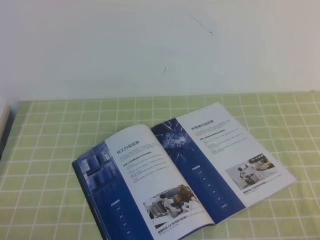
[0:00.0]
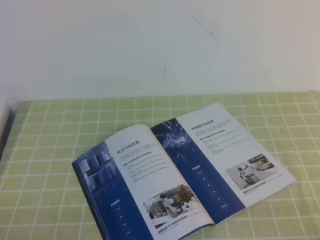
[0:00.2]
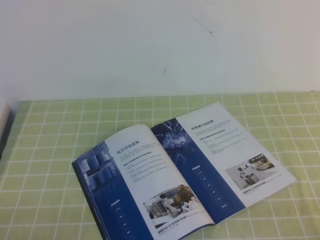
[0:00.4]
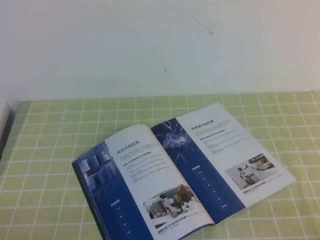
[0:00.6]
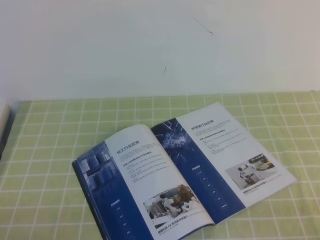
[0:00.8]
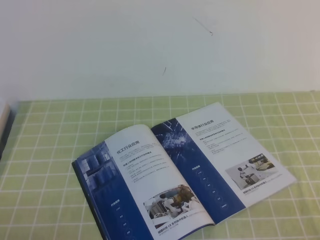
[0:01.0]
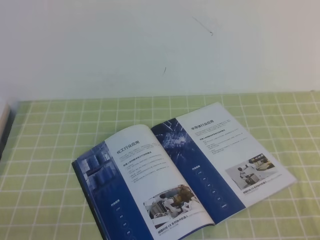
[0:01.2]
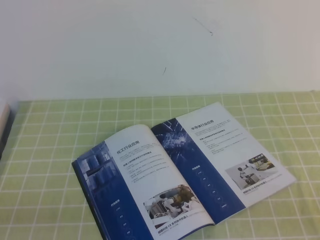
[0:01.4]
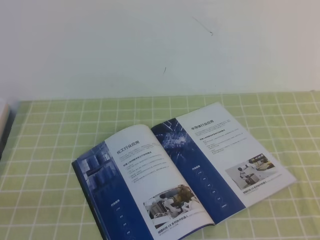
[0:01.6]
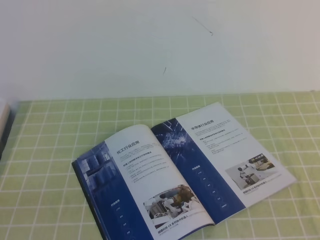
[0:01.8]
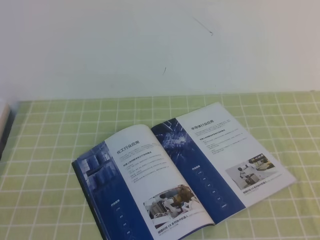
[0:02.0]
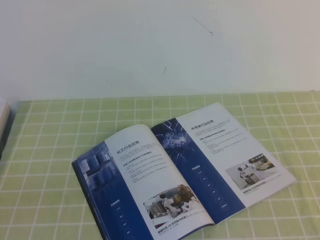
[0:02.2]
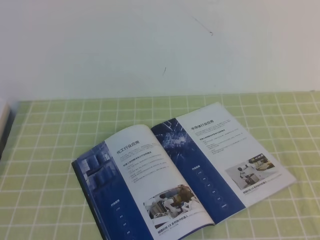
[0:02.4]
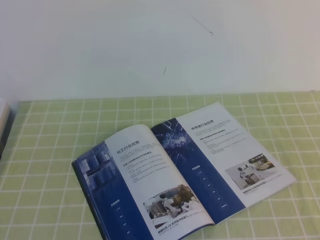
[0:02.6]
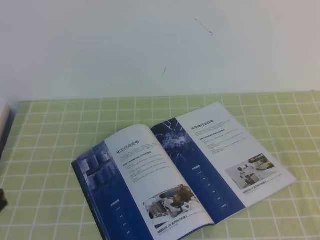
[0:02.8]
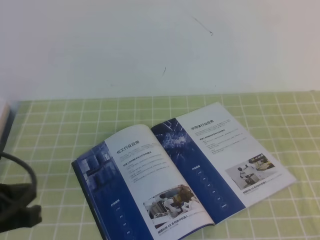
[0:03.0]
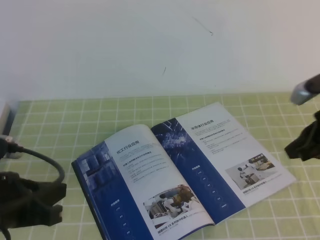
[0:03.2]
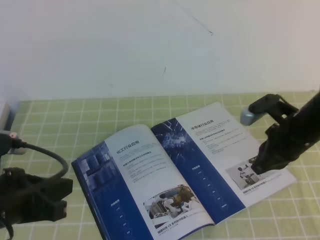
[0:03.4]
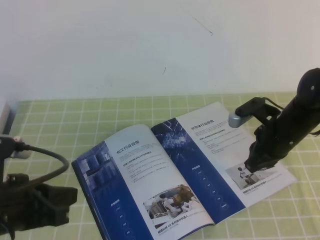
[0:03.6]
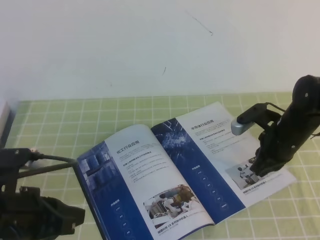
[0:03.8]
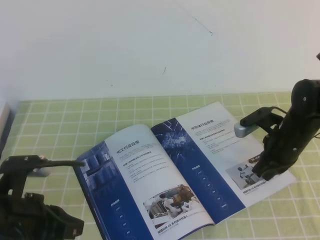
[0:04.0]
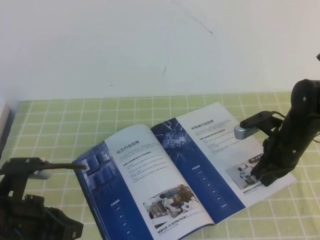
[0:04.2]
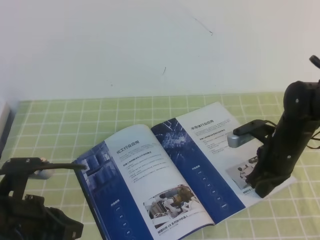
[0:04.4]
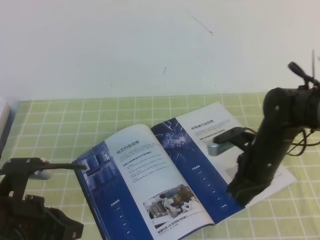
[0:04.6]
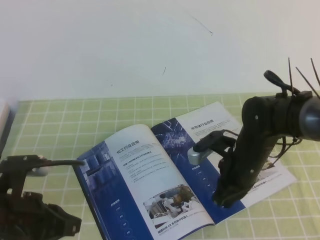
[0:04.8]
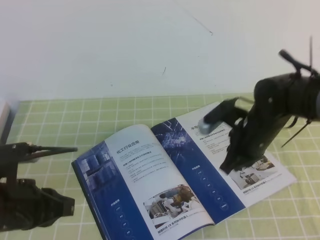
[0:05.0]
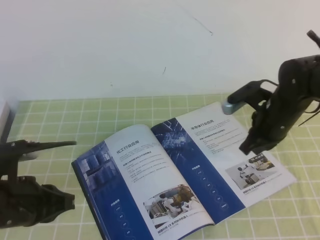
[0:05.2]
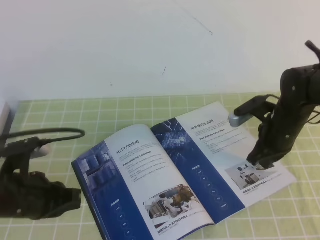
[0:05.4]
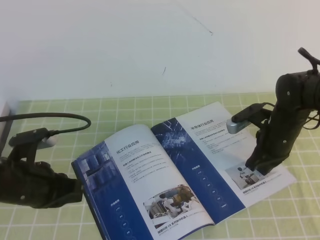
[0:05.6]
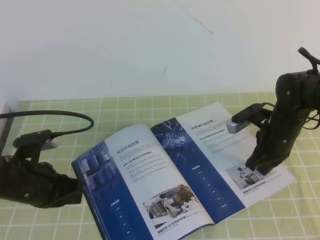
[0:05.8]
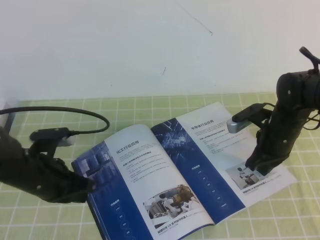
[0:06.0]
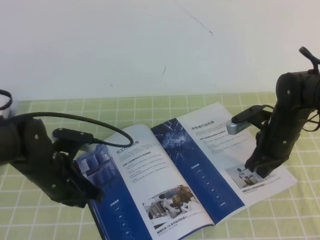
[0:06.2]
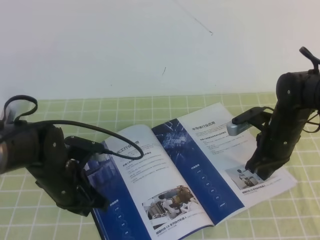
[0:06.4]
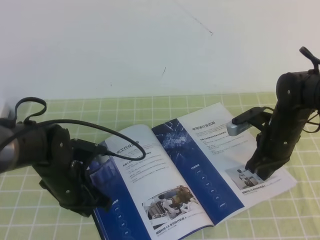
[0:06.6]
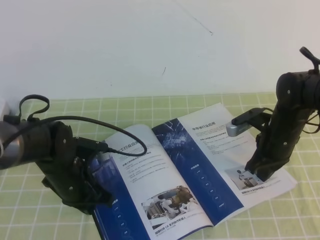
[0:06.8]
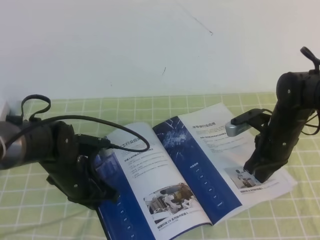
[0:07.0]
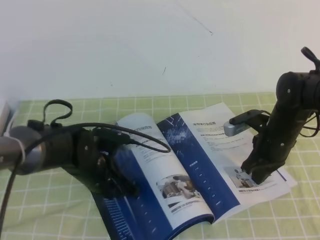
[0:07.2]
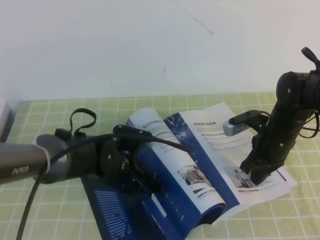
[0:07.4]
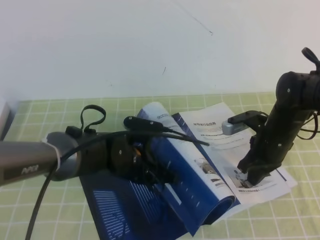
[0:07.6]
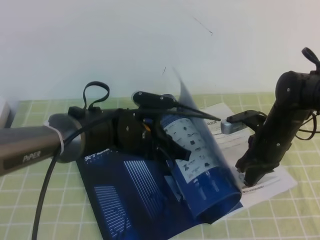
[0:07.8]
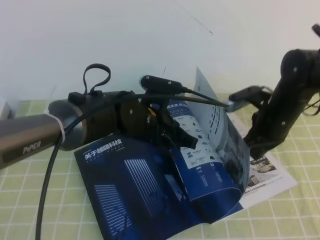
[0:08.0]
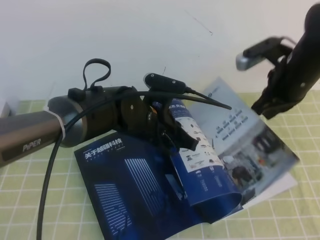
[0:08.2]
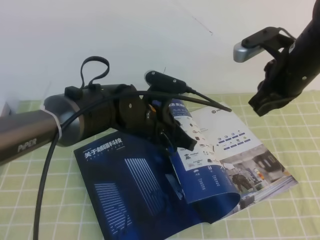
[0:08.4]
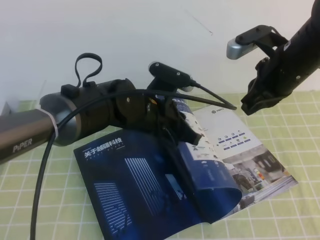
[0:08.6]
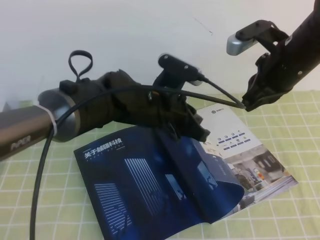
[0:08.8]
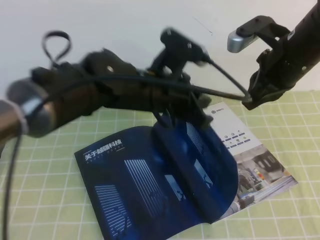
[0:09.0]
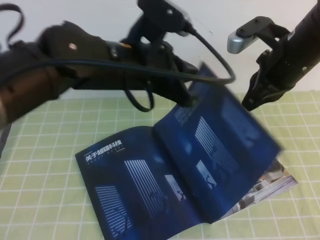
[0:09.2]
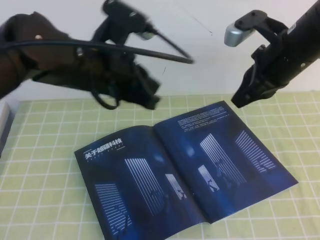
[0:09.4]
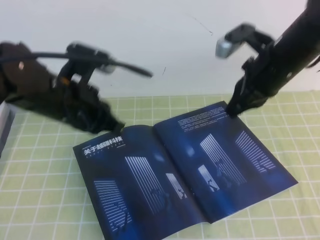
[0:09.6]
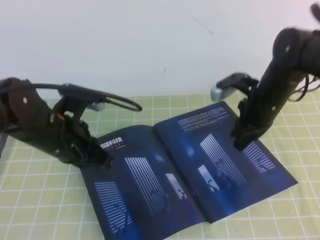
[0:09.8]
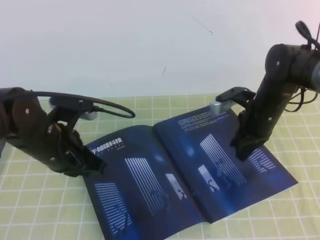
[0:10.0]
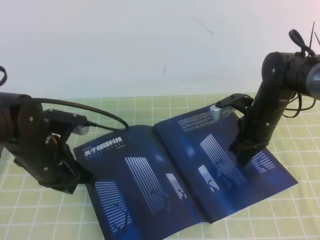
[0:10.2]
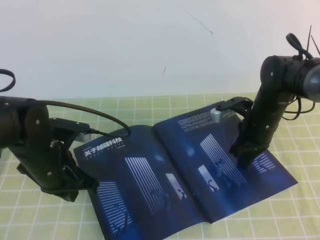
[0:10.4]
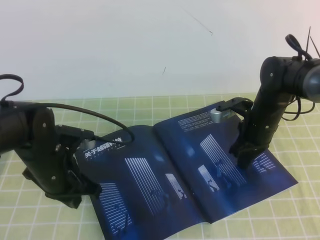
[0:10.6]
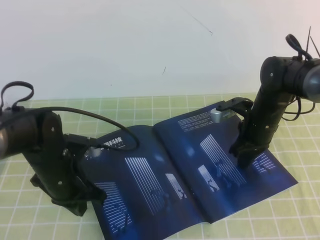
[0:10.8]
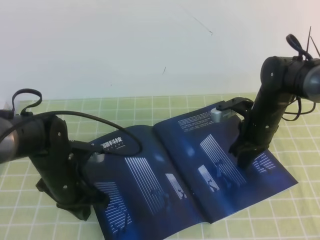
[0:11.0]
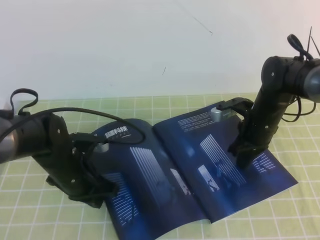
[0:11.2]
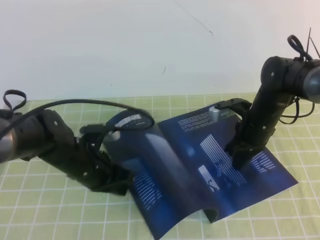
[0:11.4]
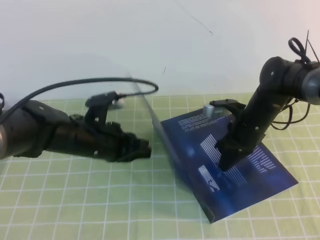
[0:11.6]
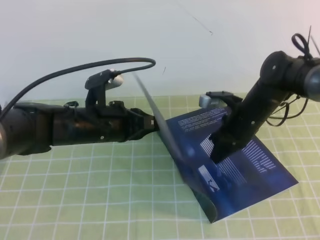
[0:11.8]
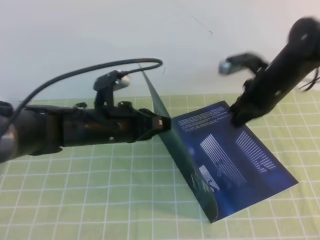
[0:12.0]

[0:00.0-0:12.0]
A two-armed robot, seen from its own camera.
Task of the whole recording: on the green tablecloth, hold the book with one hand and close it with the other.
0:01.6 to 0:03.0: The left gripper moves forward and upward, roughly 10 cm.
0:03.0 to 0:04.4: The left gripper moves downward, approximately 5 cm; the right gripper shifts about 25 cm downward, forward and to the left.
0:04.4 to 0:06.0: The left gripper moves forward, some 10 cm.
0:06.0 to 0:07.6: The left gripper heads to the right, covering roughly 15 cm.
0:07.6 to 0:09.0: The grippers both shift upward by some 15 cm.
0:09.0 to 0:10.4: The left gripper shifts some 20 cm to the left and downward, while the right gripper moves downward, roughly 15 cm.
0:10.4 to 0:12.0: The right gripper is displaced upward by roughly 10 cm. The left gripper travels to the right by roughly 10 cm.

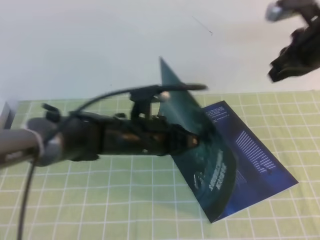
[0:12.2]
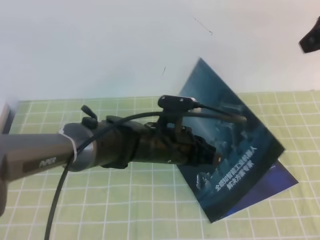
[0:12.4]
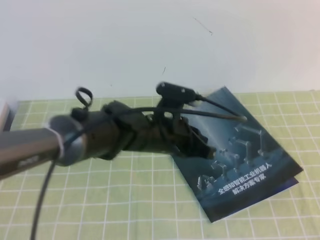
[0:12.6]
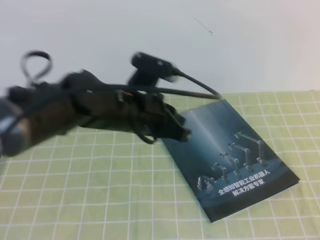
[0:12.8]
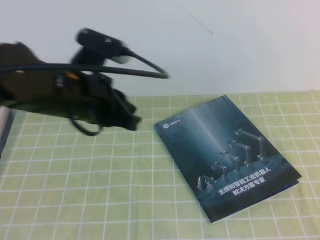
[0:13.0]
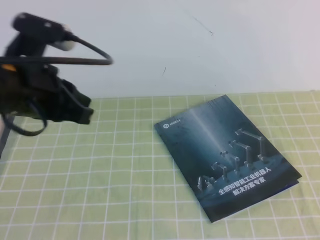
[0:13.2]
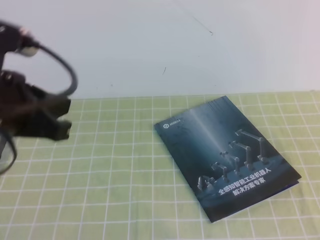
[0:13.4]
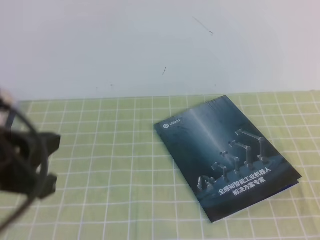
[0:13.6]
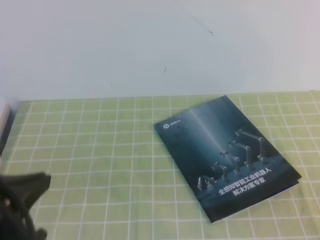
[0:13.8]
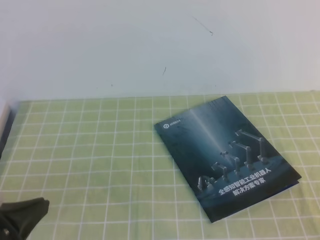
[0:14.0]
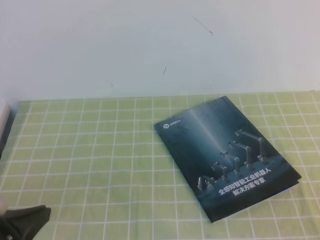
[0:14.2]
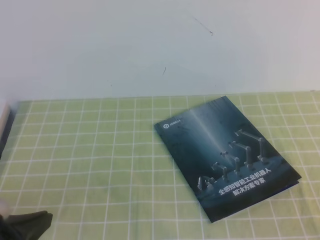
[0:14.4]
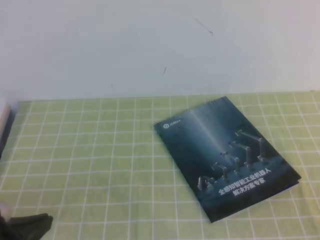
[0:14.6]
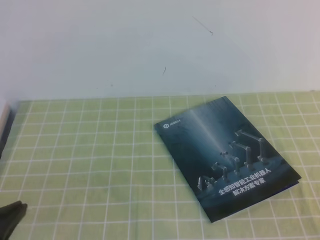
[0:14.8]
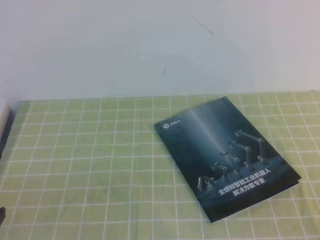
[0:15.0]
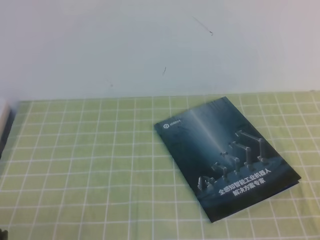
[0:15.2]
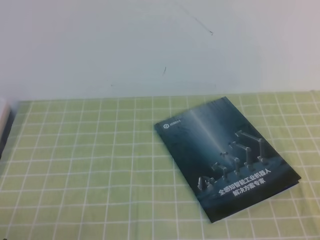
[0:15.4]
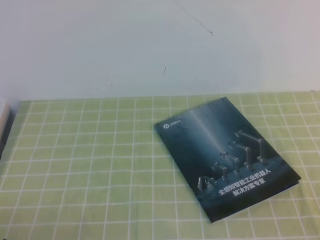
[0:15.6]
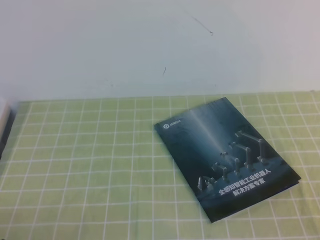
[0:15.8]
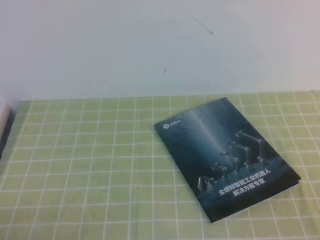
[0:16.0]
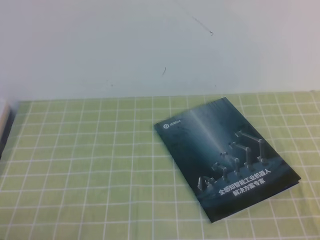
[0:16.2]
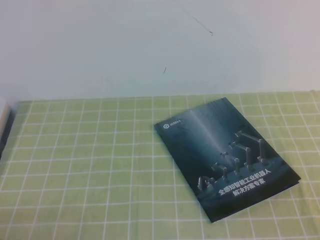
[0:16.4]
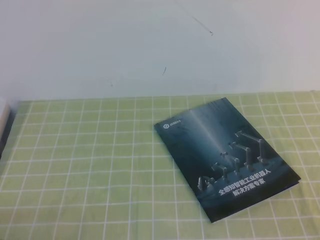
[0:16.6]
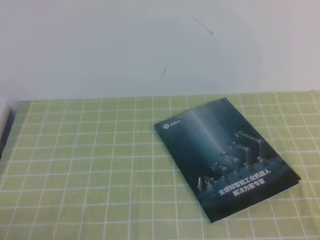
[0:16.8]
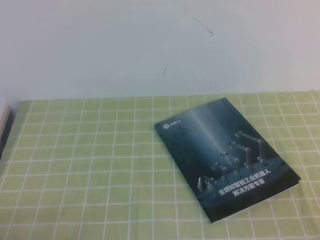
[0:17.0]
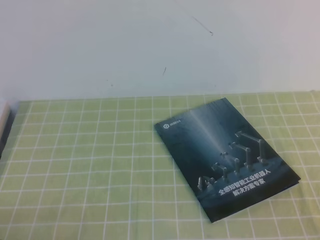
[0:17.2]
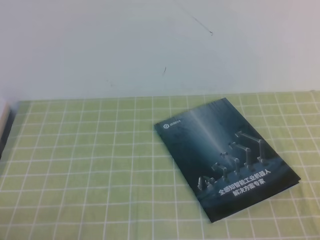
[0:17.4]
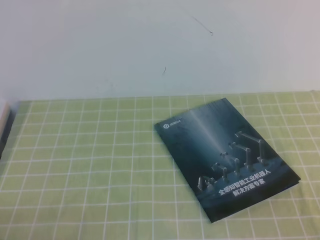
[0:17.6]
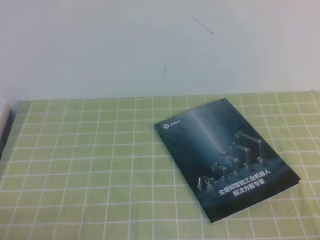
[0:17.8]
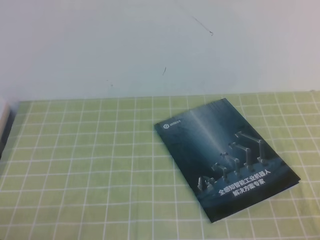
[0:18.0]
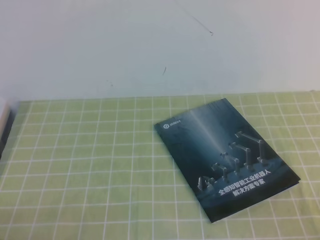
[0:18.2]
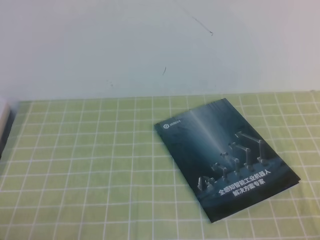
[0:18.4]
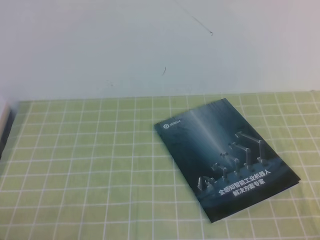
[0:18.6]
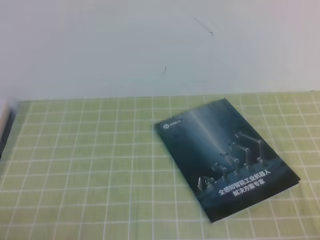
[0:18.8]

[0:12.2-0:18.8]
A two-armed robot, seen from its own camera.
Task of the whole recording: on the green tablecloth, hold the book with one hand and close it with the other.
Step, 0:12.2 to 0:18.8: Close the open book.
0:12.2 to 0:13.8: The right gripper shifts roughly 35 cm backward; the left gripper goes approximately 30 cm backward, to the left and upward.
0:13.8 to 0:15.4: The left gripper is displaced downward and backward by some 15 cm.
